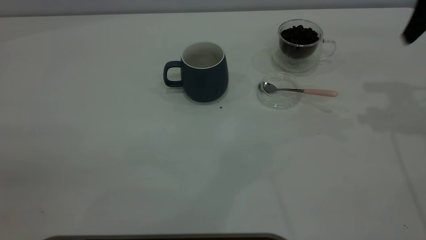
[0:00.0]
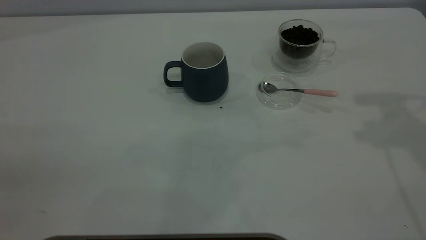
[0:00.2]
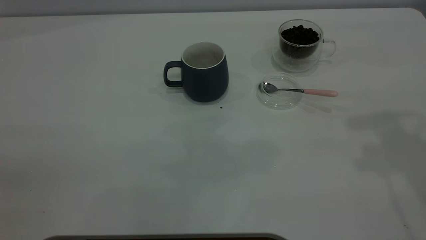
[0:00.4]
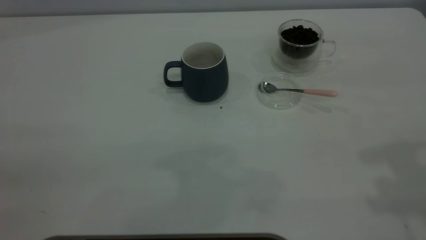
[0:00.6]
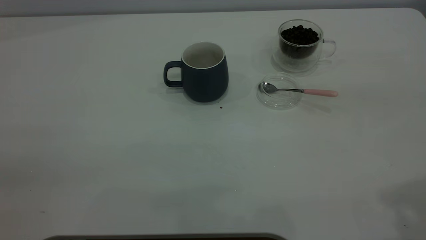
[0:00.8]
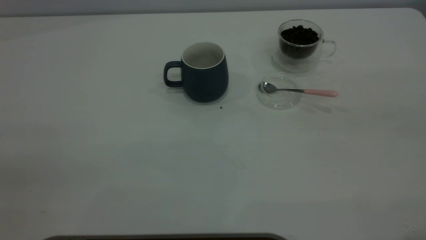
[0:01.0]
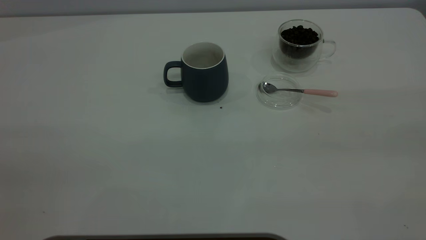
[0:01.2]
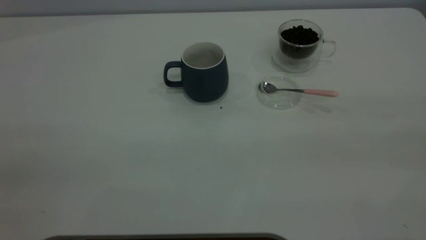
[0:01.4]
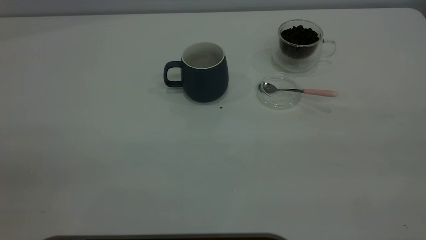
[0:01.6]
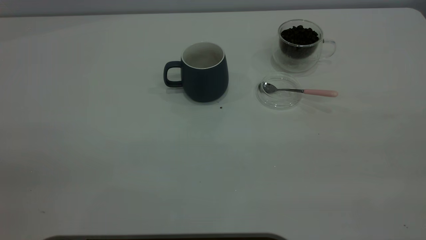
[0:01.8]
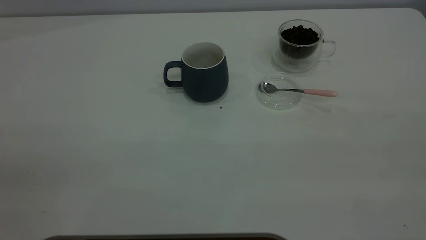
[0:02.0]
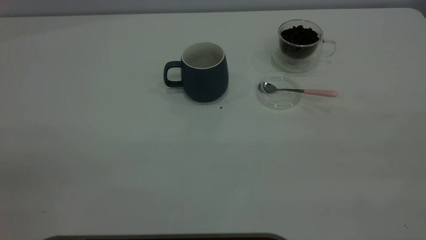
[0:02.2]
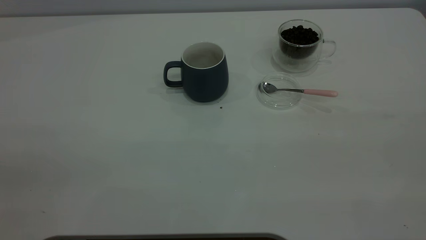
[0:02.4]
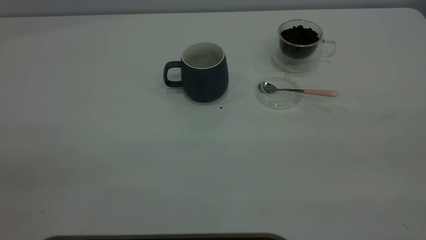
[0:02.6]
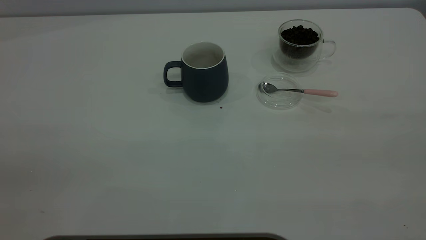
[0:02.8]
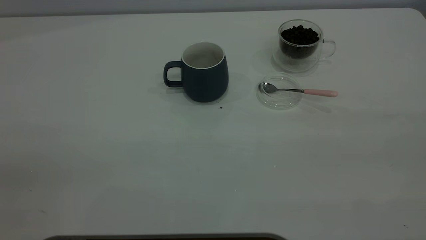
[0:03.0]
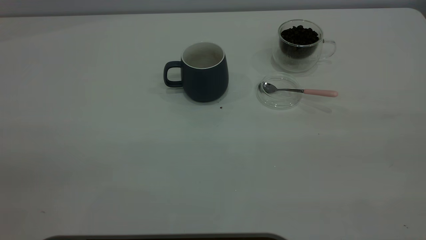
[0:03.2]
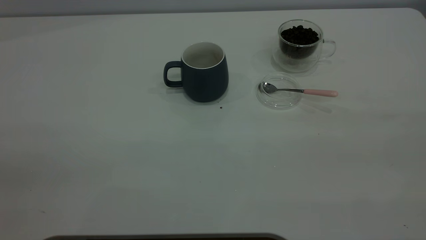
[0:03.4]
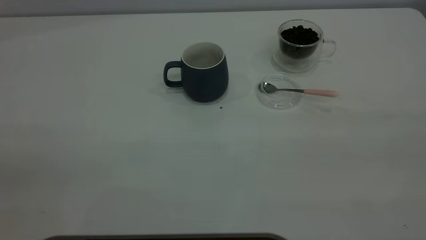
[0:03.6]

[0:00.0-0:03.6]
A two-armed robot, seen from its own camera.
Task of the whole recording: the left gripper place the grey cup in the center of the table, the right gripper take the pink spoon from the cup lid and scoop out the coffee beans from the coffee cup and put them into the grey cup, the right gripper put the spoon back into the cup lid.
0:00.0 to 0:01.8: The right gripper heads backward, covering about 35 cm.

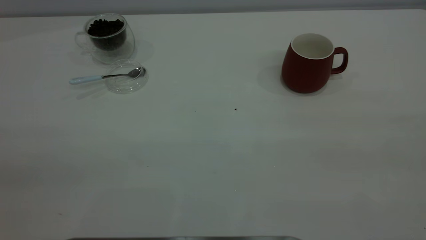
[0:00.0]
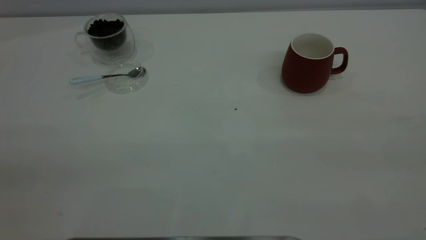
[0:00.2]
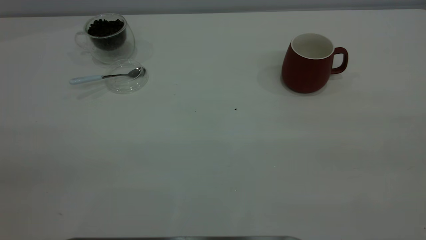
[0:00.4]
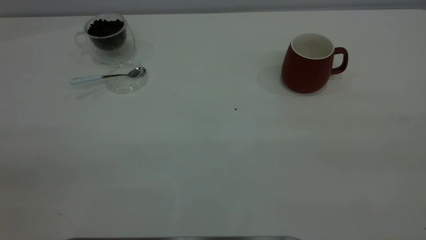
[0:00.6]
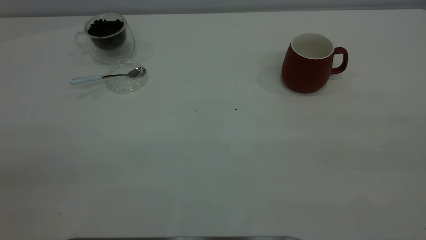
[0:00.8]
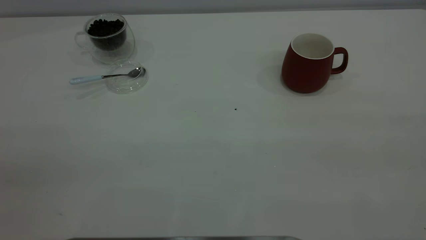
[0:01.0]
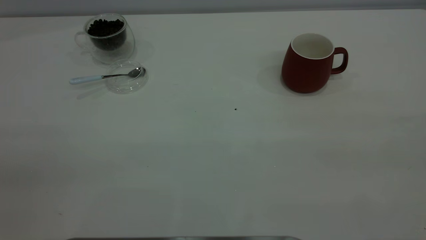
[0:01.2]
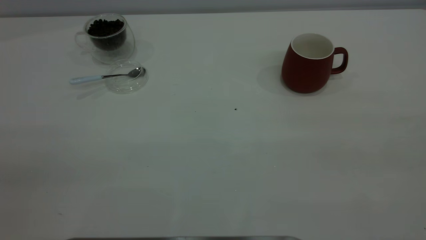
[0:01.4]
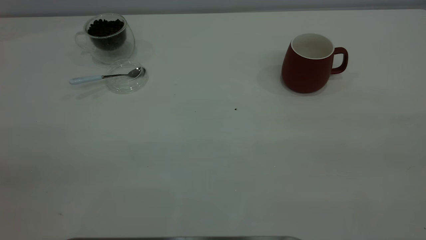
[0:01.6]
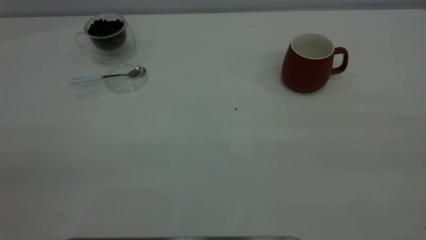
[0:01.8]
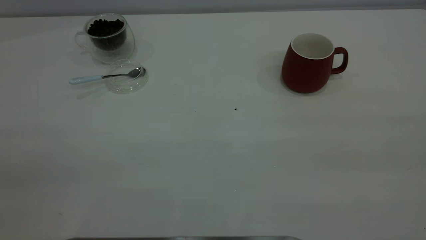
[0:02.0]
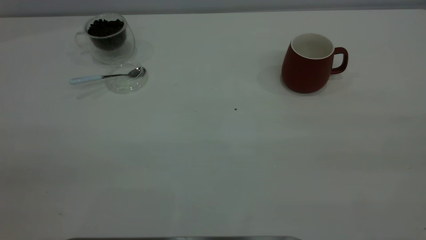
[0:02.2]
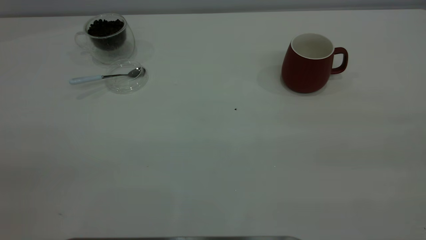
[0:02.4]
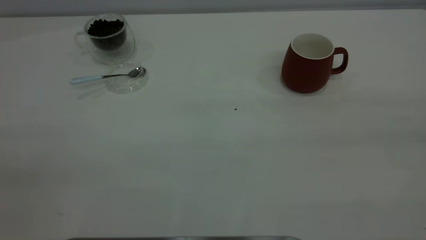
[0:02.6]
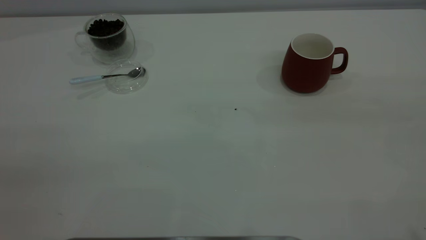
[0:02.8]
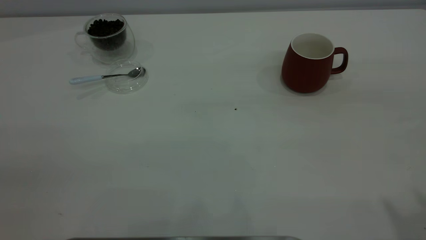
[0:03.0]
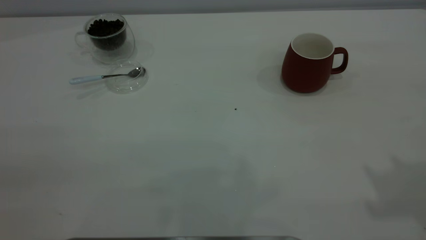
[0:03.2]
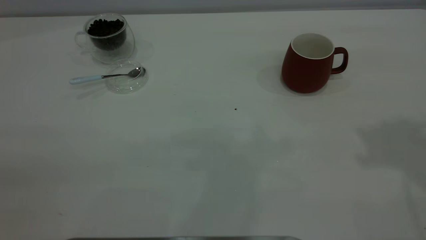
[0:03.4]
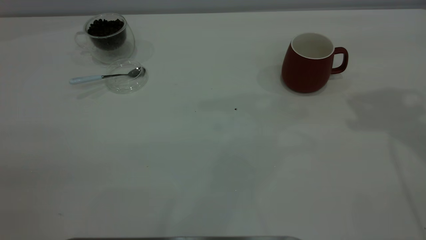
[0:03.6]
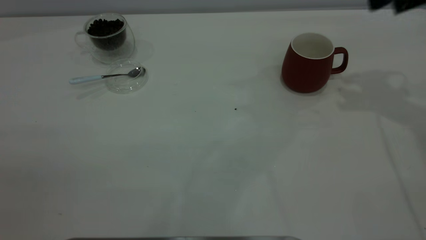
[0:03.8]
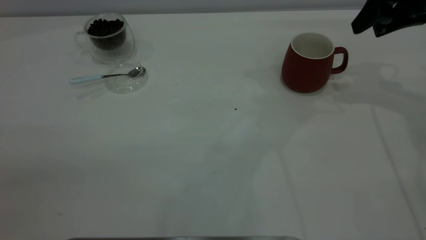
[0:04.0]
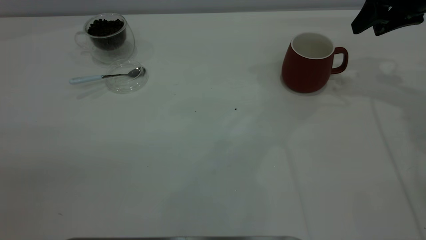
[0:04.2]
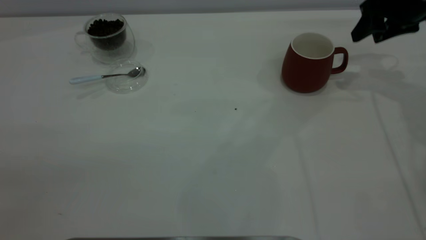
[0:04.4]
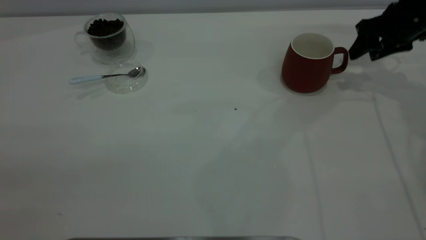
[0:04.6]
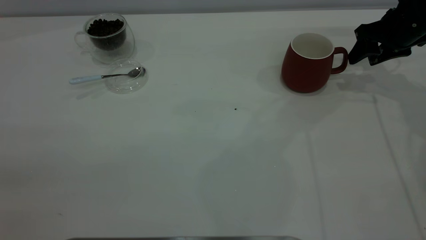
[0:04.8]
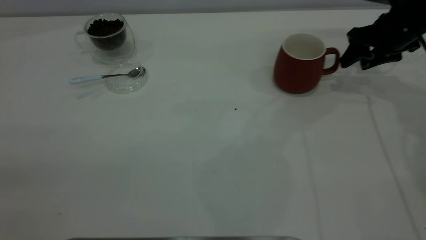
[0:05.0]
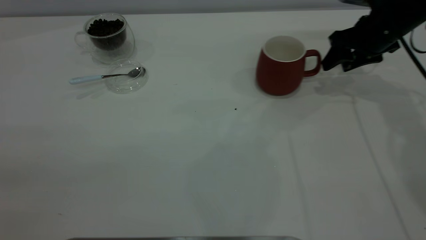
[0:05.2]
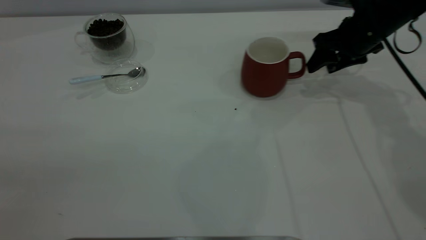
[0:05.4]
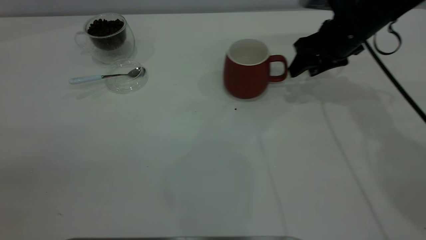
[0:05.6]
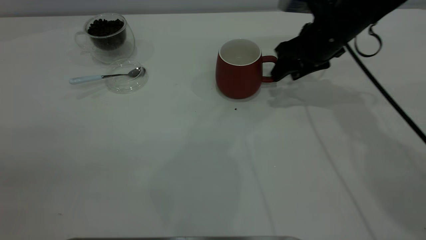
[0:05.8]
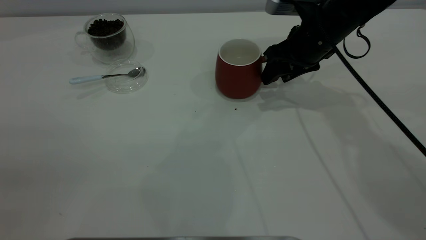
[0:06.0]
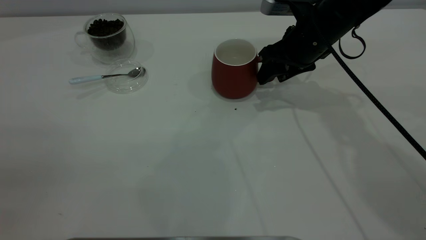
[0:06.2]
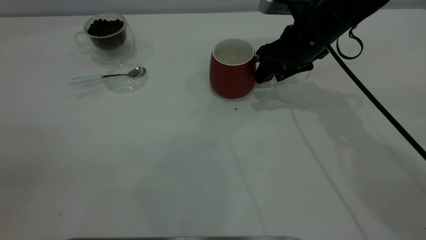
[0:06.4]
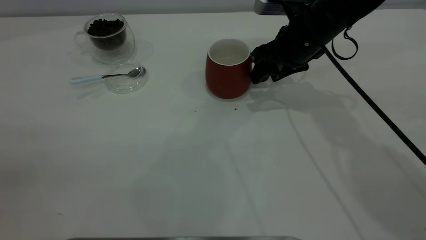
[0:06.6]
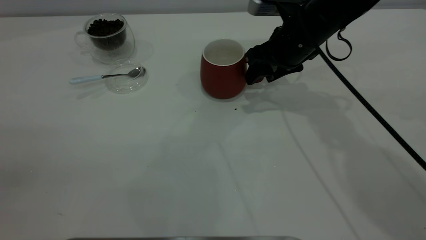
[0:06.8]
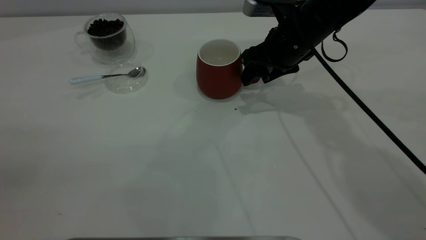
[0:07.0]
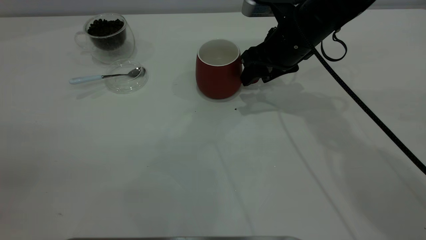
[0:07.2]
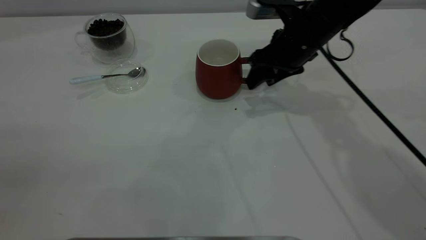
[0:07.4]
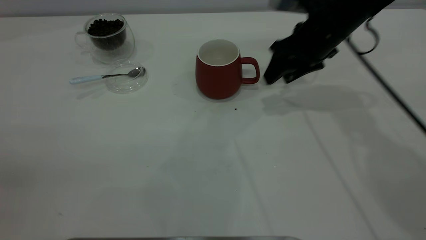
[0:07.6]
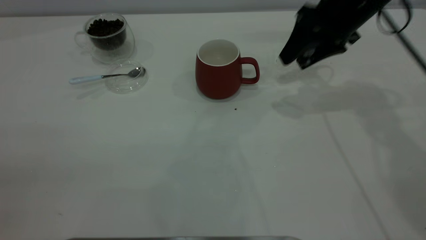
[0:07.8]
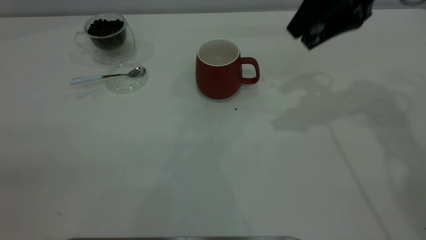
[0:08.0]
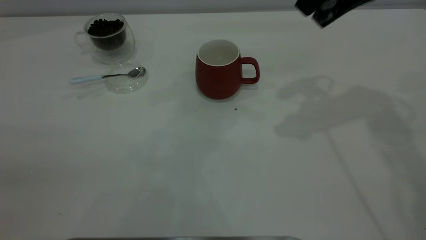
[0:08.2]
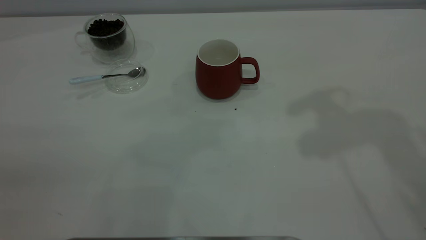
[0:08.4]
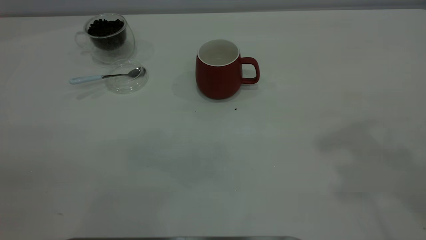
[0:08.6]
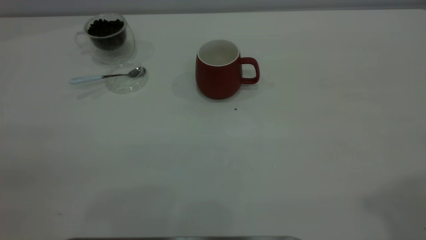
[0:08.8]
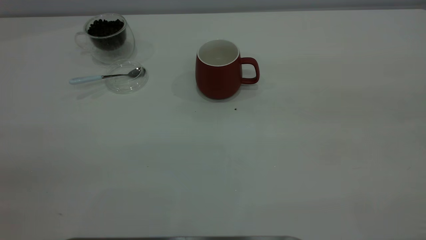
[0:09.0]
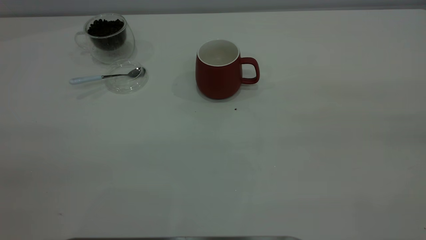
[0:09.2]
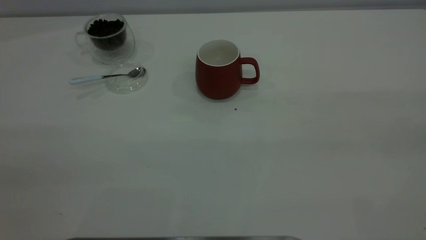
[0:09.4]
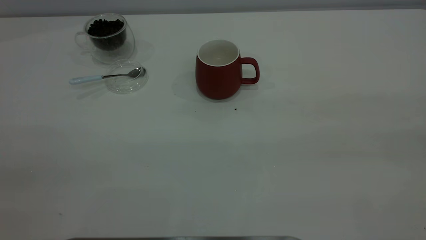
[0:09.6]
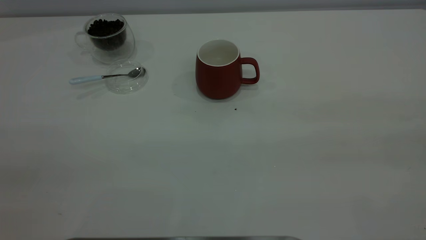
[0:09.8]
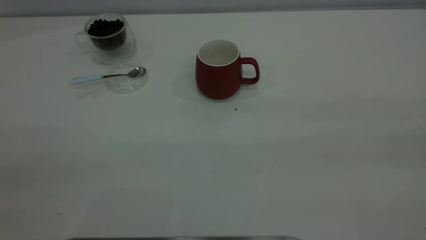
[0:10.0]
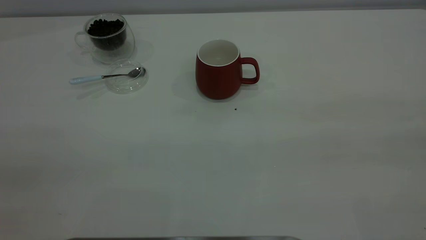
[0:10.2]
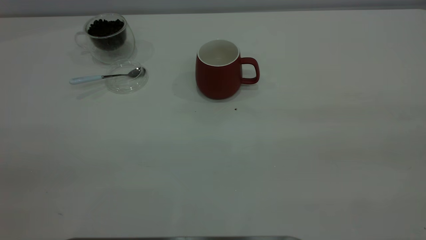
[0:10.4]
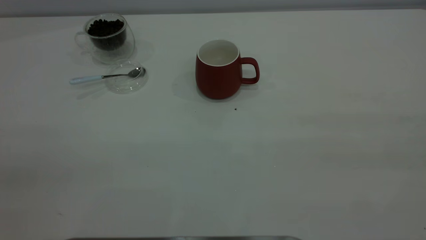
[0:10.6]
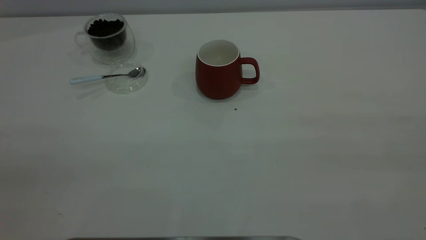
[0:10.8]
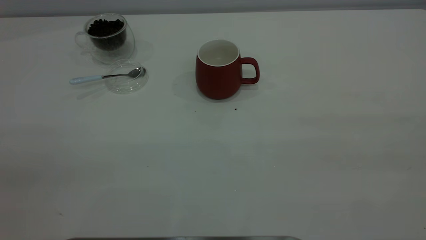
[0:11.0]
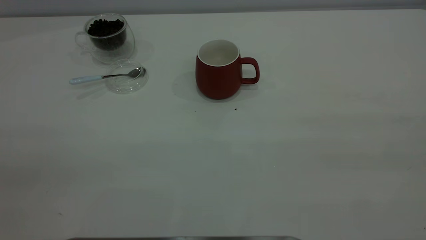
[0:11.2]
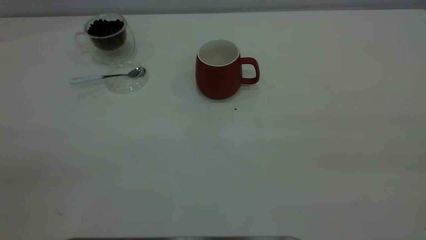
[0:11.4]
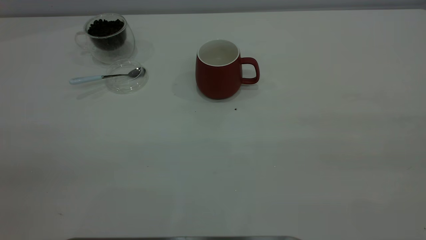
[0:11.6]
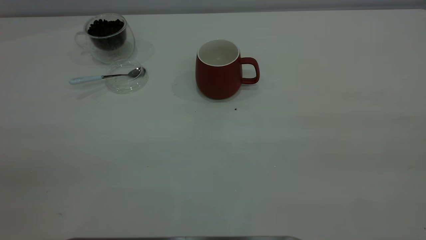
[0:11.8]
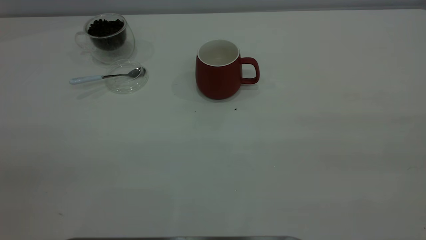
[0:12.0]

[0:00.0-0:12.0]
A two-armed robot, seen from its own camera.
Task of the whole recording: the right gripper place the red cup in the center of the table, the left gripper take the blue spoon from the cup lid and scoop out the coffee beans from the coffee cup and put them into the red cup, the left gripper put the spoon back into the cup lid.
Step, 0:00.0 to 0:07.8: Move the cup to the center of view.
0:00.0 to 0:01.6: Neither gripper changes place.
0:03.0 to 0:04.4: The right gripper heads forward and downward, covering some 40 cm.
0:04.4 to 0:06.0: The right gripper heads to the left, covering roughly 15 cm.
0:06.0 to 0:07.6: The grippers make only small movements.
0:07.6 to 0:09.0: The right gripper is displaced backward and upward by some 40 cm.

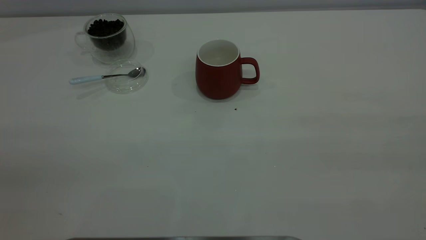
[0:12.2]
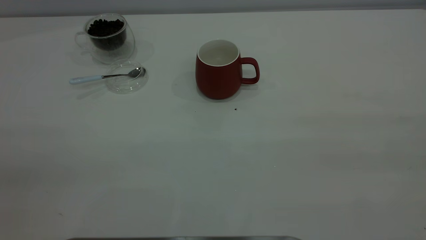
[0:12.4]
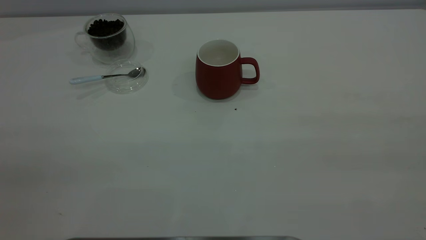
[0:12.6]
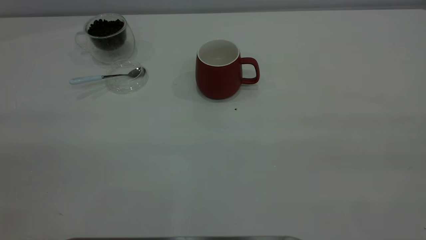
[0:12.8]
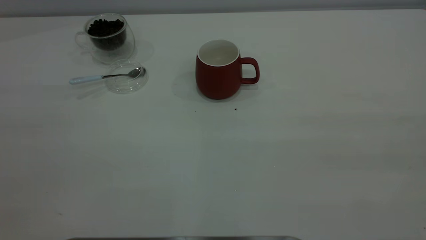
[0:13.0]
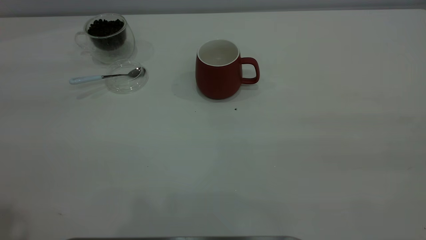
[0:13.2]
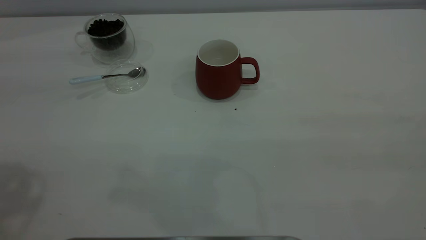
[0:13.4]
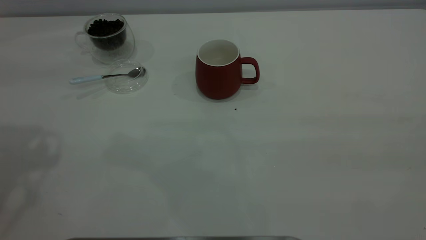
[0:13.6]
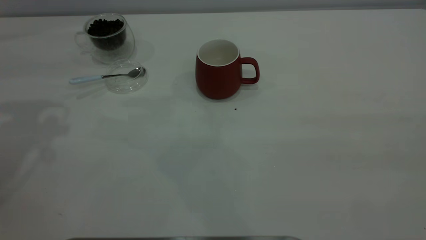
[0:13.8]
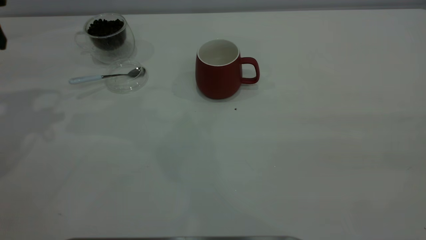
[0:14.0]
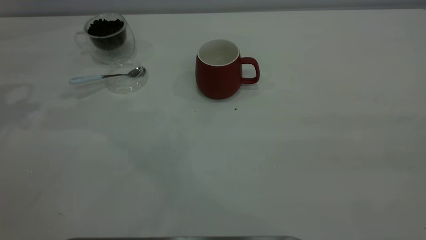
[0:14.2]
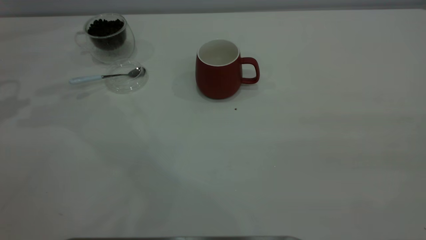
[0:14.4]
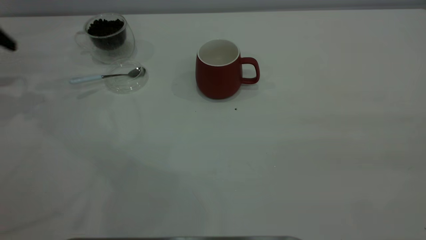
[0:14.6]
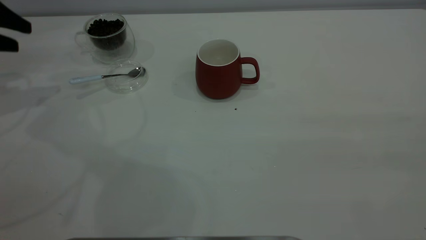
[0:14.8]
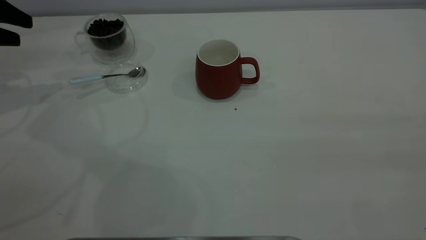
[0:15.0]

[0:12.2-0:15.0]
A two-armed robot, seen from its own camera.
Task of the whole recording: the right gripper place the red cup in the center of the table, the left gripper take the blue spoon from the cup lid and scoop out the coffee beans from the coffee cup and put them into the red cup, the left gripper put the spoon back into the cup lid.
0:13.6 to 0:15.0: The left gripper is displaced downward, forward and to the left by roughly 20 cm.
